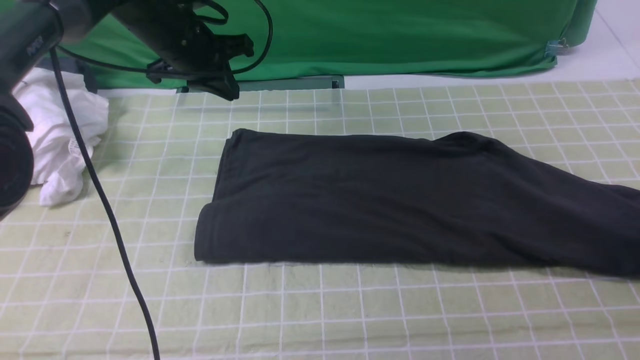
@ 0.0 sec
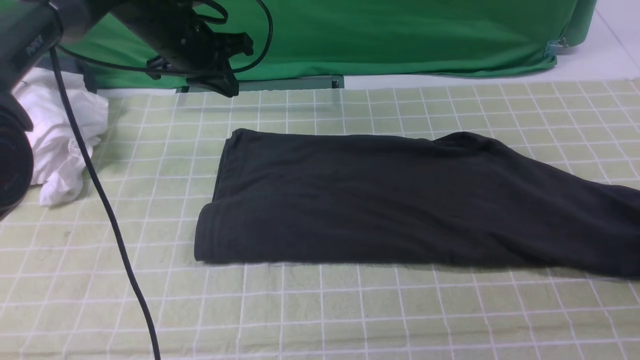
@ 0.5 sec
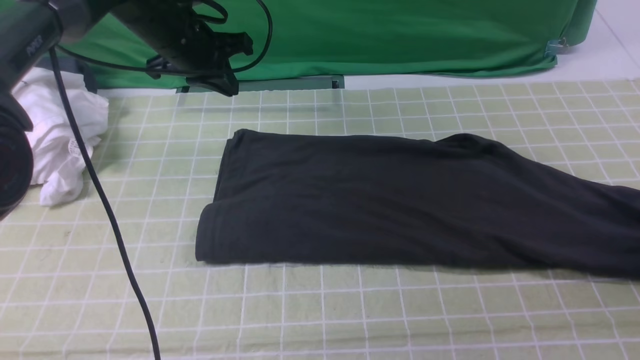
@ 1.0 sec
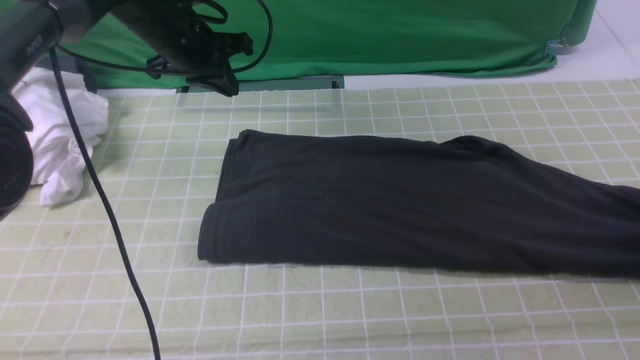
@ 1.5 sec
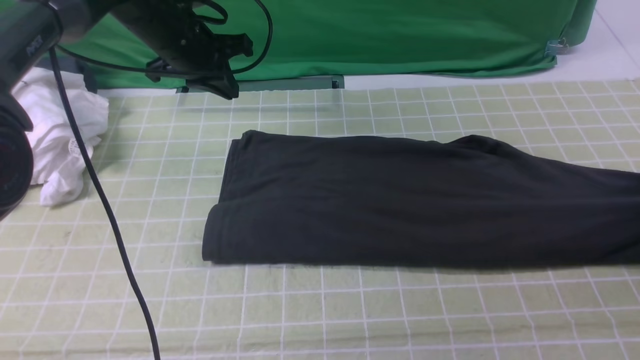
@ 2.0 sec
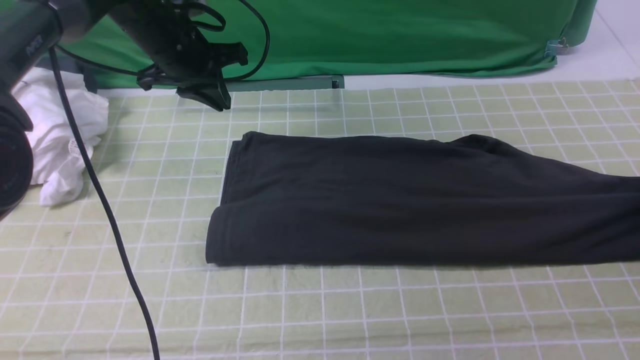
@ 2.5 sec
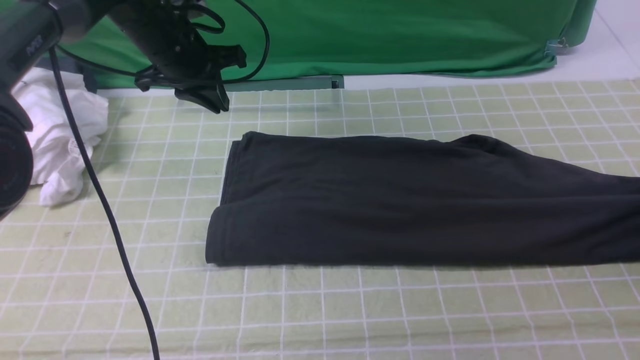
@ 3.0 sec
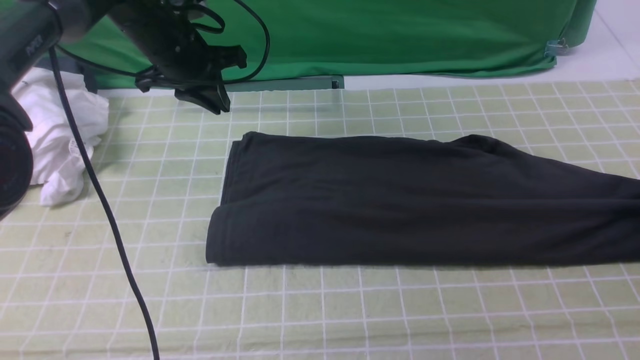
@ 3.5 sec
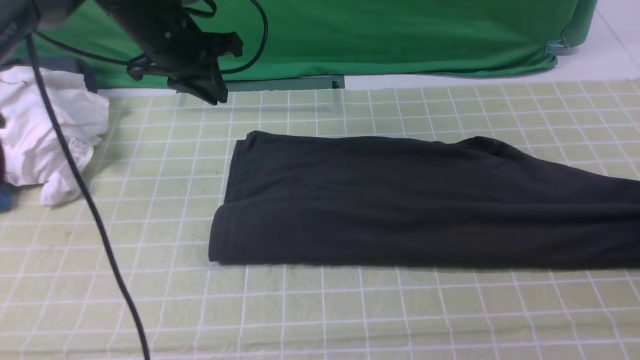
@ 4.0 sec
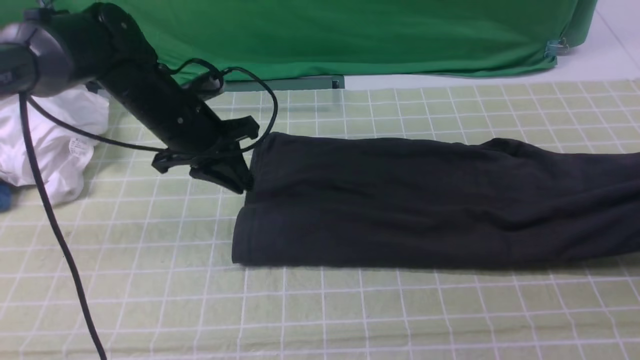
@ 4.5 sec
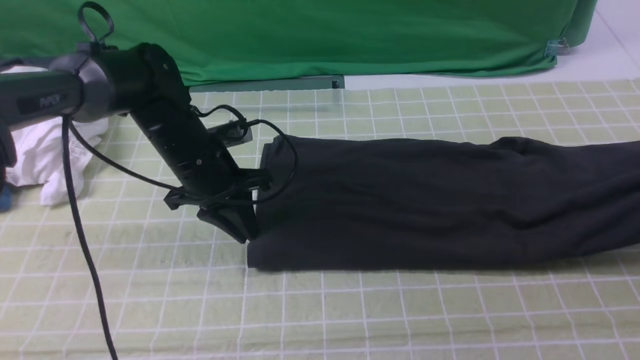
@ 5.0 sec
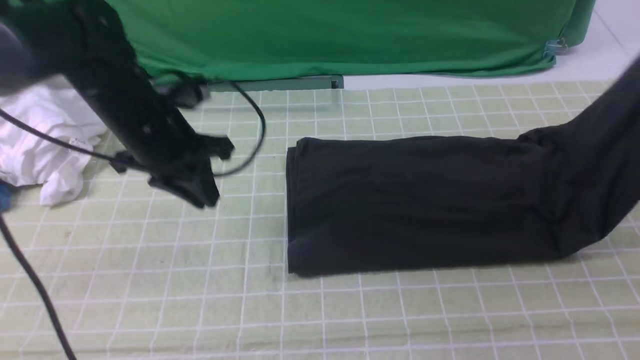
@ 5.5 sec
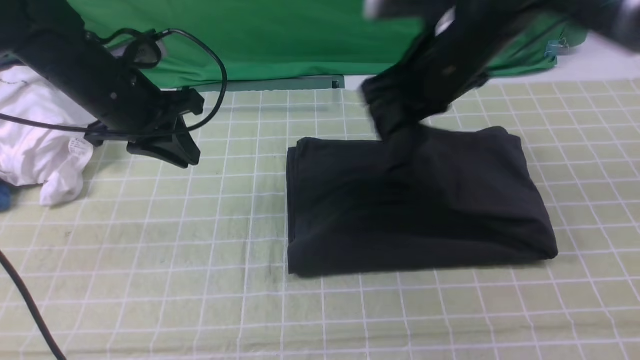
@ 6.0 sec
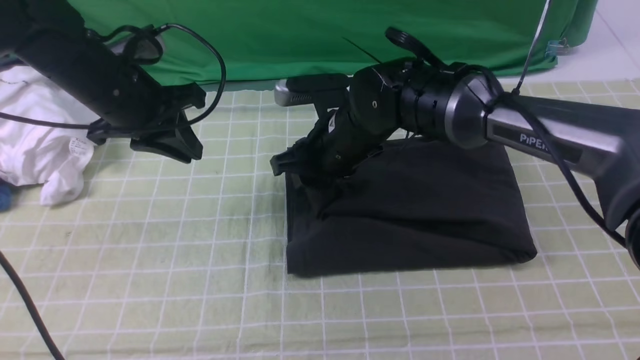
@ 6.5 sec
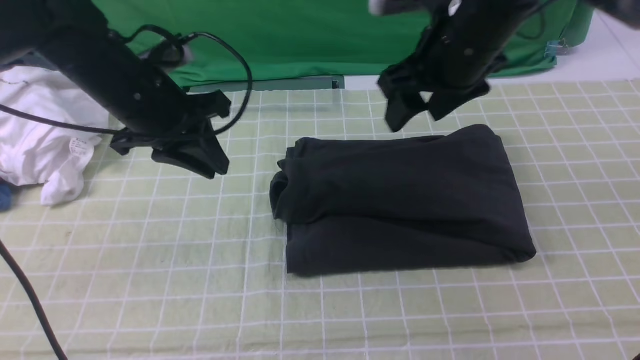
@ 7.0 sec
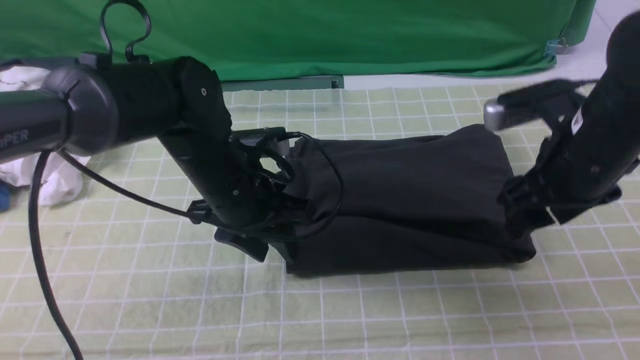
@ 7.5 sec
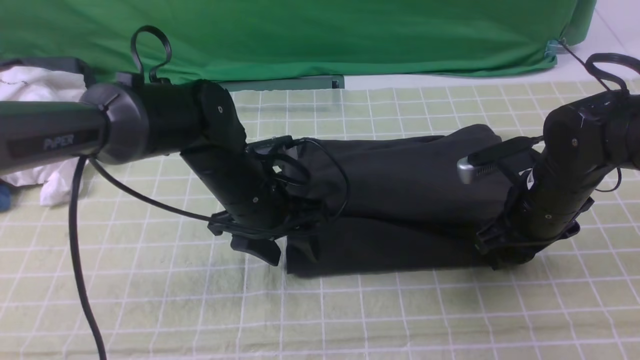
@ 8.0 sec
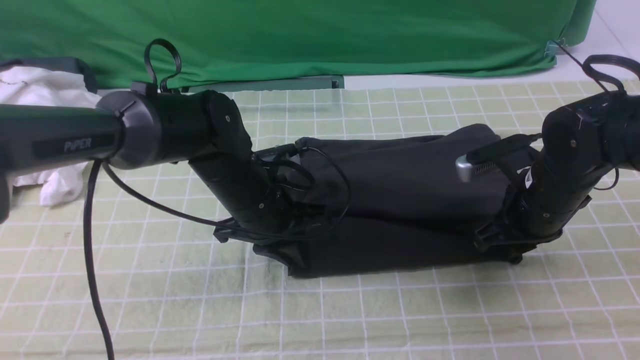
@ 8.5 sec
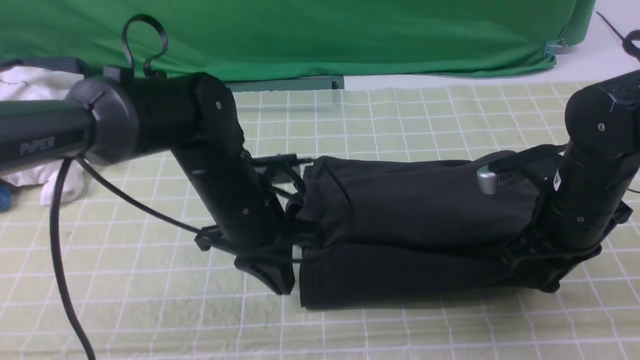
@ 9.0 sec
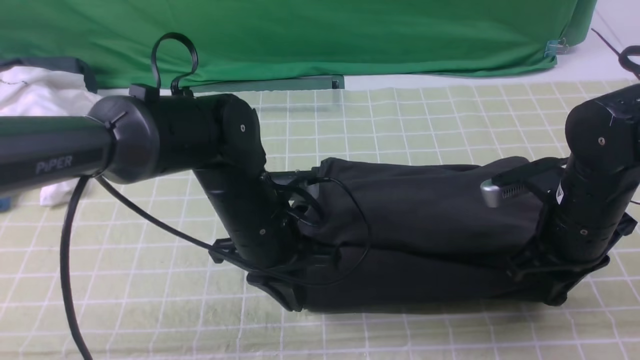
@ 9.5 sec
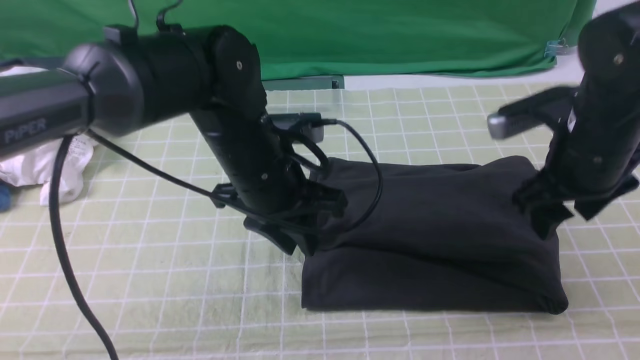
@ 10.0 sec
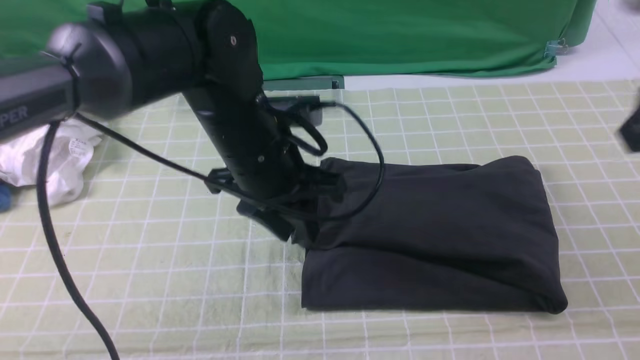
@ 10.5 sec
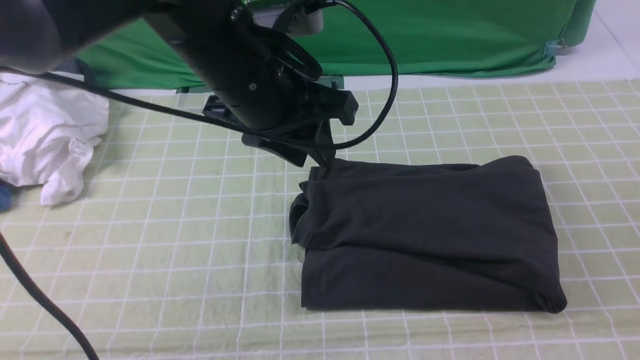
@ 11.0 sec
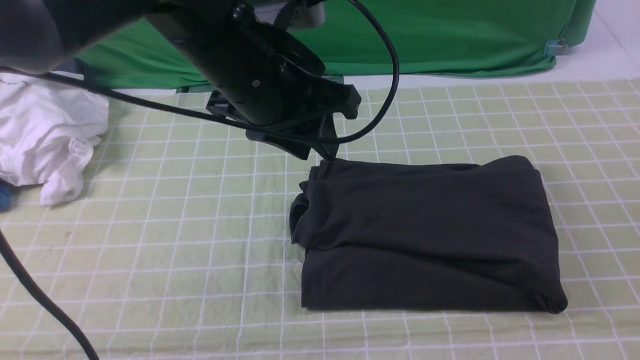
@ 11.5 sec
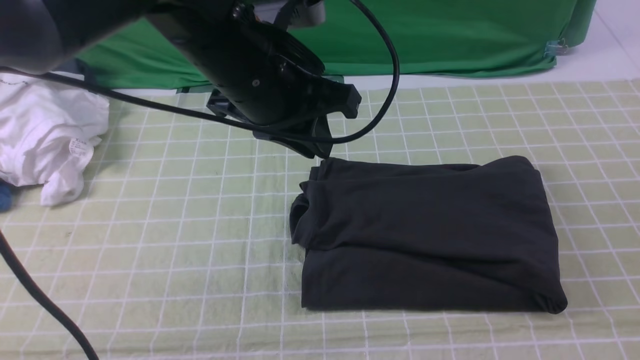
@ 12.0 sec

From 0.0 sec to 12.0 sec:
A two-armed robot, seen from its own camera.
Step, from 0.0 sec to 3.5 sec: use the right arm to clamp the right edge of the fabric.
Step, from 4.0 sec to 6.5 sec: use the right arm to drag the right edge of the fabric to the left and folds it over the left edge.
From 0.0 sec to 2.0 sec: The right gripper closes up.
From 2.0 sec to 4.0 sec: The right gripper opens, then closes again.
From 4.0 sec to 6.0 sec: The right gripper moves to the left, some 35 cm. The left gripper shifts approximately 10 cm backward, and moves roughly 10 cm downward and comes back.
From 6.0 sec to 8.0 sec: The left gripper is displaced to the right and downward by approximately 15 cm, and opens up. Meanwhile the right gripper heads downward, to the right and backward, covering roughly 20 cm, and opens up.
From 8.0 sec to 10.0 sec: Both grippers move upward, some 10 cm. The right gripper closes, then reopens, while the left gripper closes up.
From 10.0 sec to 12.0 sec: The left gripper shifts approximately 10 cm upward. Meanwhile the right gripper shifts about 25 cm backward, and closes.

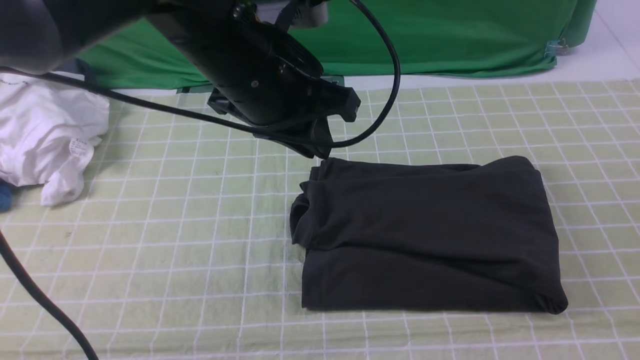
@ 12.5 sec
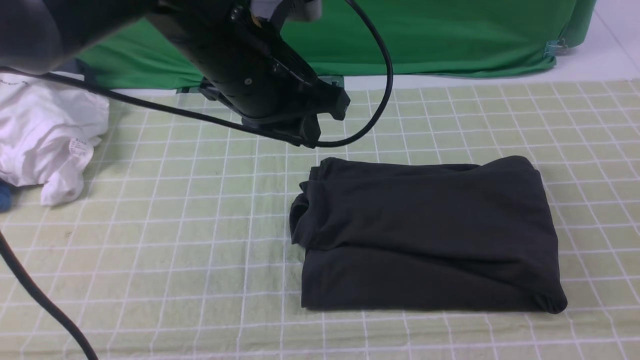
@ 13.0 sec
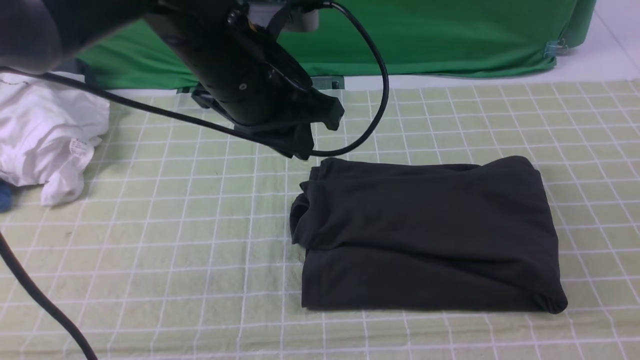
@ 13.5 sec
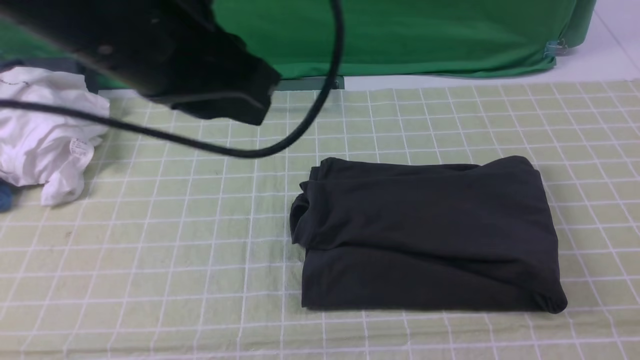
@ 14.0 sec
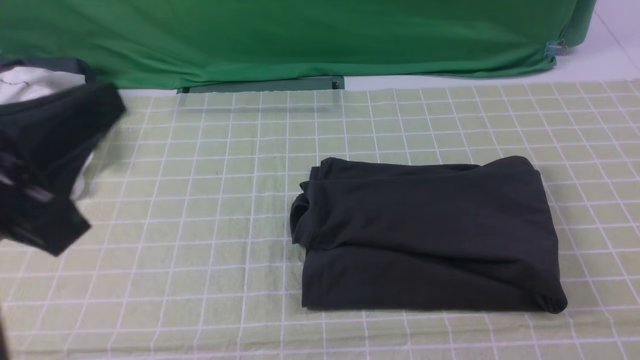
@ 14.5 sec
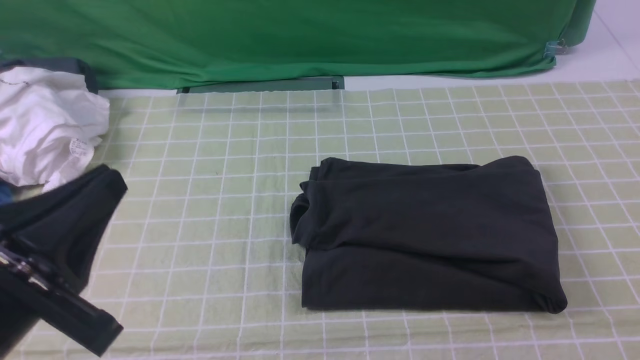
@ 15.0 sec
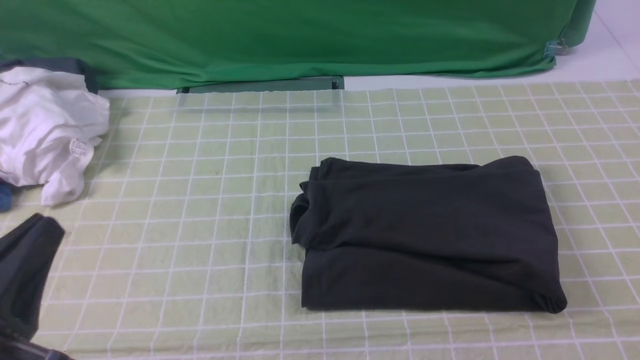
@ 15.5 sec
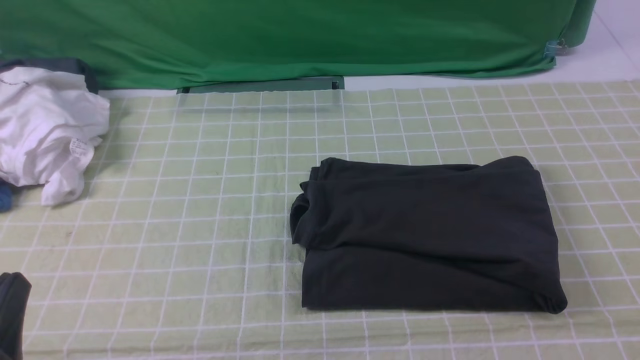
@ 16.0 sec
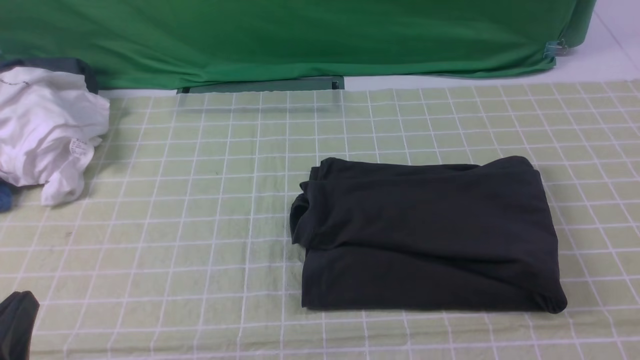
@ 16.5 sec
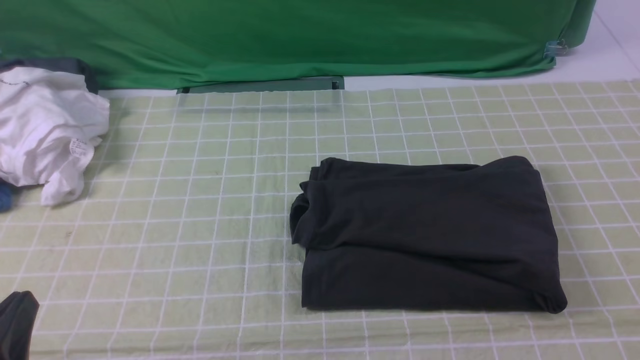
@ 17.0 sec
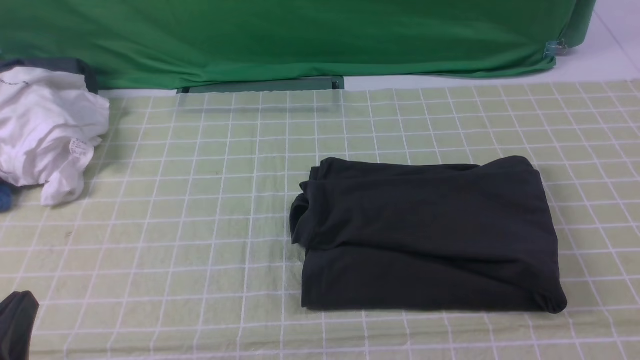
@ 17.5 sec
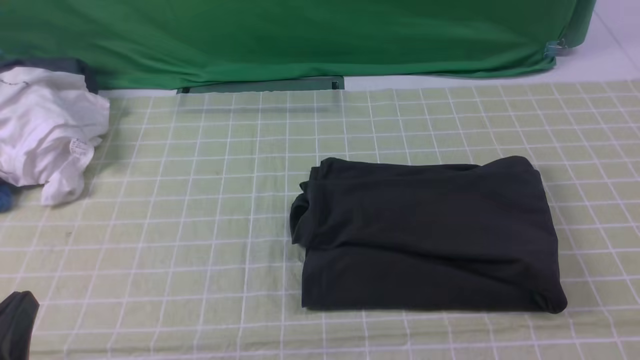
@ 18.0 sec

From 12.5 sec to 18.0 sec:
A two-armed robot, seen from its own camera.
From 12.5 sec to 14.5 sec: The right gripper travels downward by roughly 10 cm; the left gripper goes some 25 cm backward and to the left.
From 14.5 sec to 16.0 sec: The left gripper travels downward by some 15 cm.

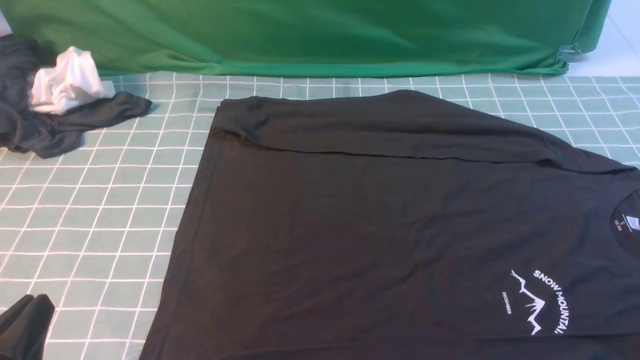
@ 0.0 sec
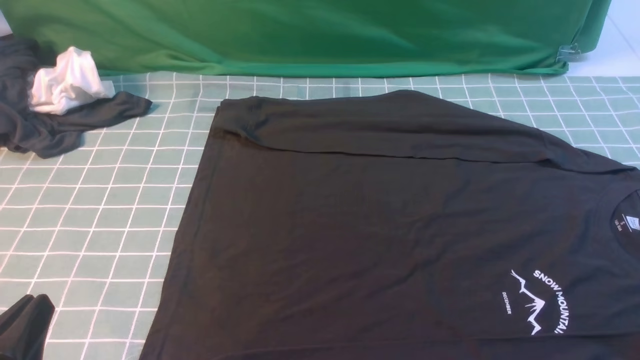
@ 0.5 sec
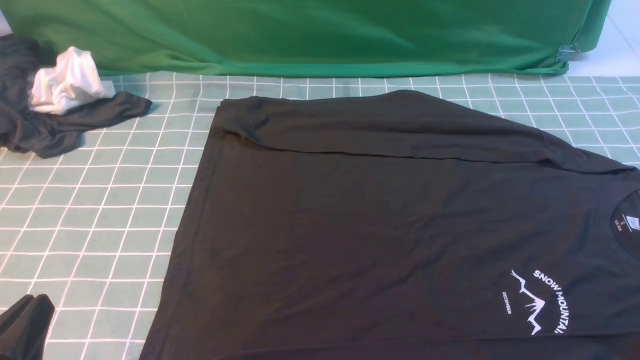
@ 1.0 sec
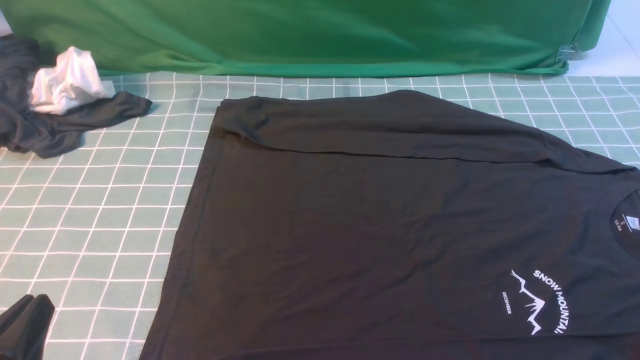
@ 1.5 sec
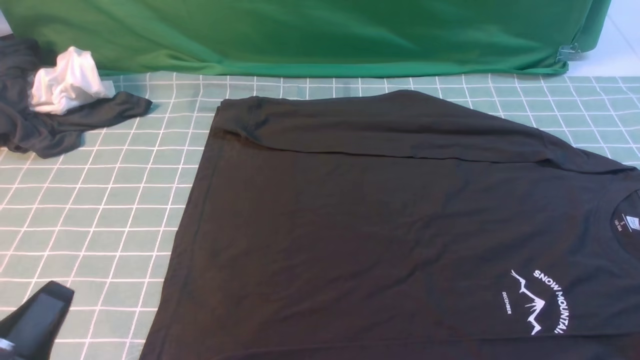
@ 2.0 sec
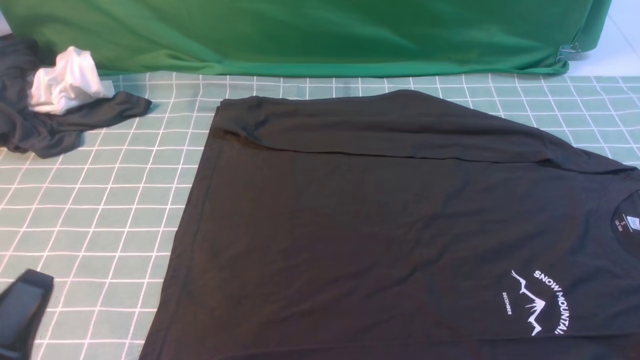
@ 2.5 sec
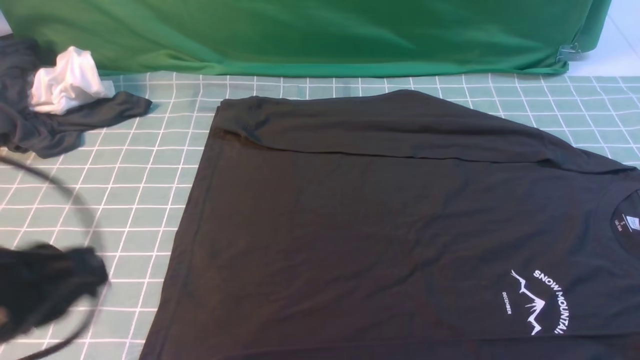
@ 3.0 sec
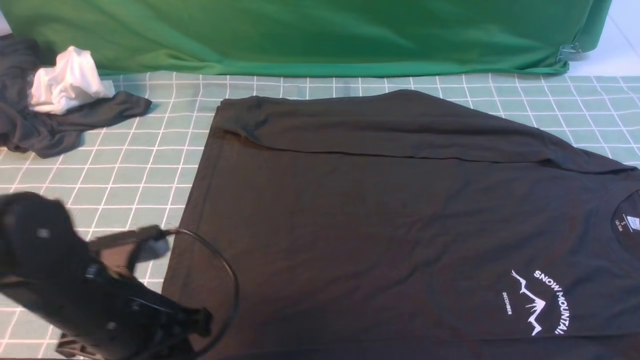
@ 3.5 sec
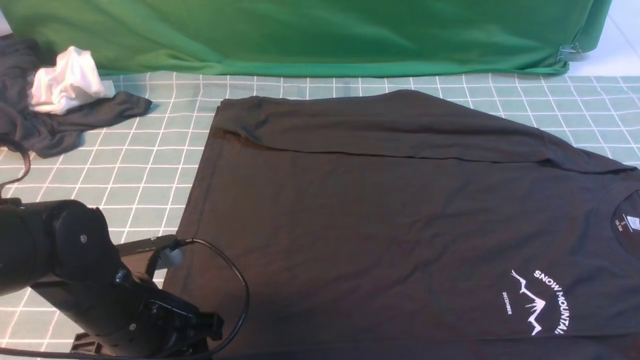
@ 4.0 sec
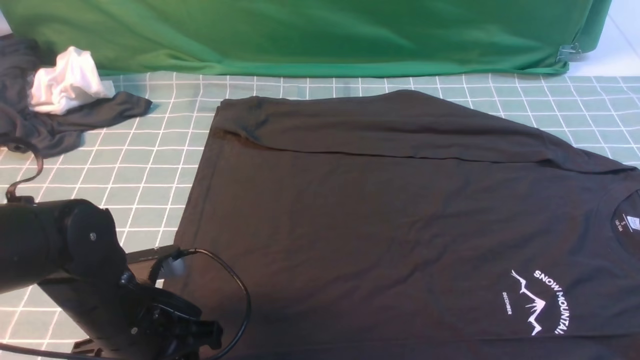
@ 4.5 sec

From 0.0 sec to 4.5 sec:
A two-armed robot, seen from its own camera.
From 2.0 sec to 4.5 sec: The left gripper moves forward and to the right, about 15 cm, and opens.
